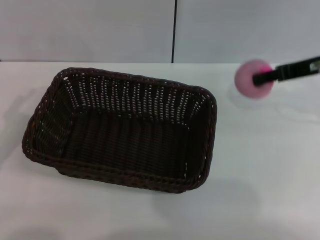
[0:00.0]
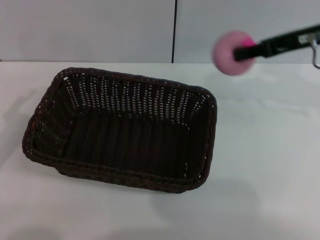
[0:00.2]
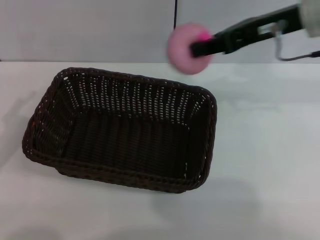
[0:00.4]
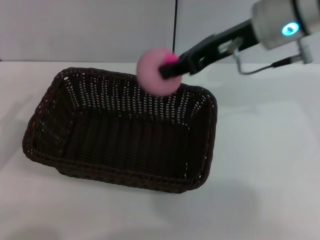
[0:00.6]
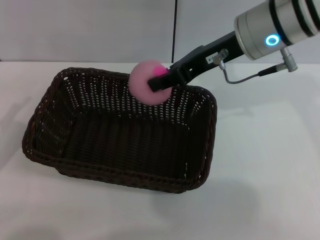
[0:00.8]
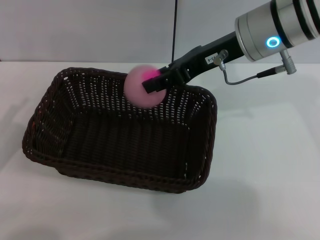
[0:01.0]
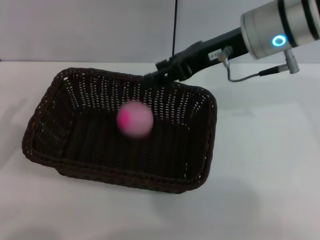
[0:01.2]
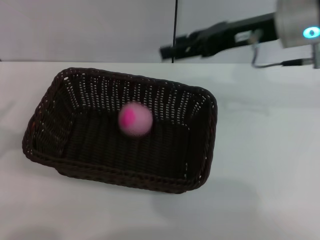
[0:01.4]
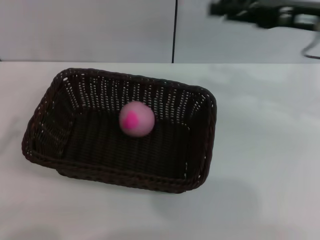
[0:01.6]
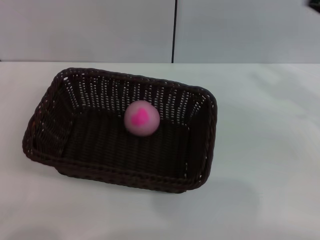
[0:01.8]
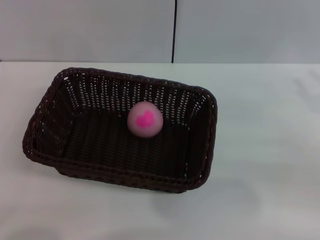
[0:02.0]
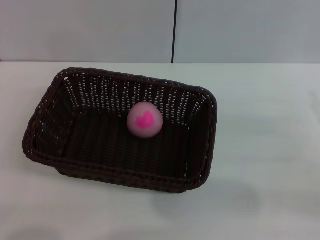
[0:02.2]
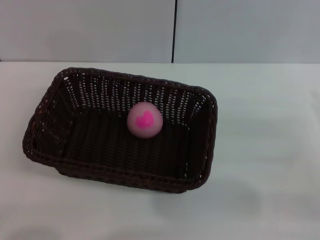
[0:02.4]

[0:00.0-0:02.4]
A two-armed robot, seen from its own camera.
Step, 0:00.2 to 0:01.2: Place the peach into the basket with the left gripper.
0:00.0 to 0:01.2: The right gripper travels to the left by about 15 cm, and opens.
0:01.2 to 0:02.4: The right gripper heads to the right, backward and downward, covering some 30 cm, while the left gripper heads backward and downward, covering about 10 cm.
